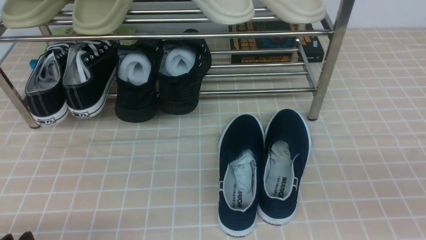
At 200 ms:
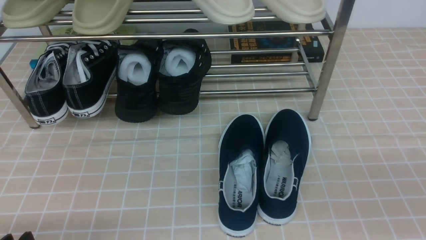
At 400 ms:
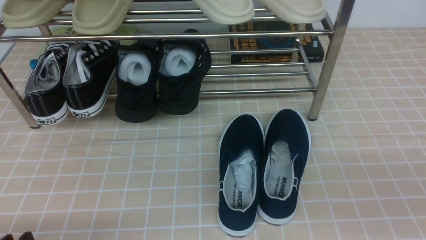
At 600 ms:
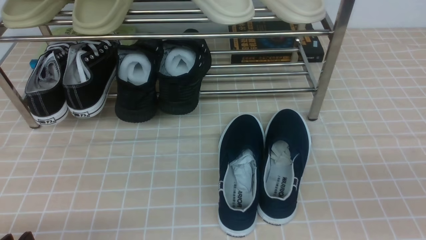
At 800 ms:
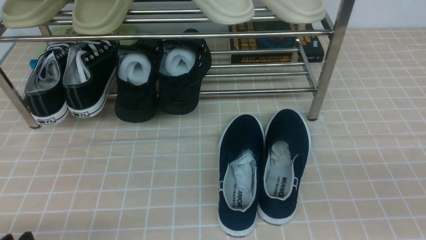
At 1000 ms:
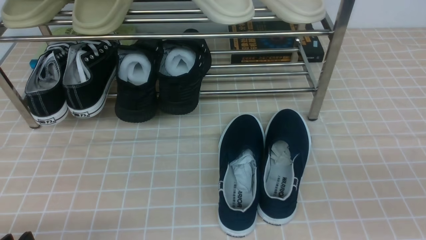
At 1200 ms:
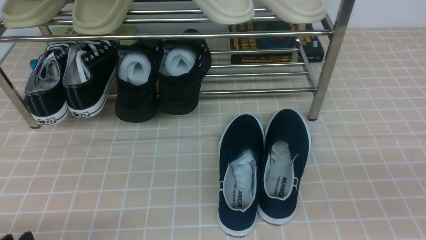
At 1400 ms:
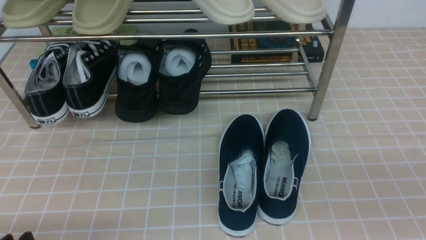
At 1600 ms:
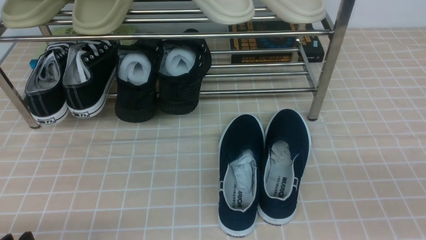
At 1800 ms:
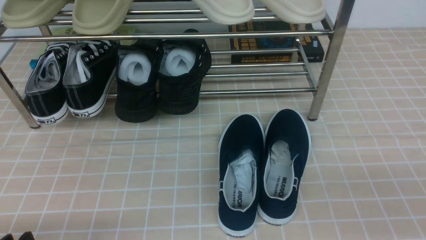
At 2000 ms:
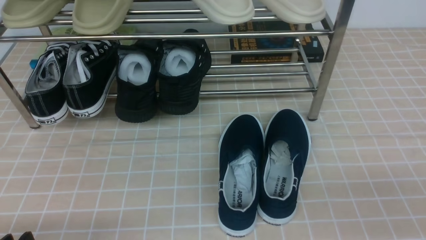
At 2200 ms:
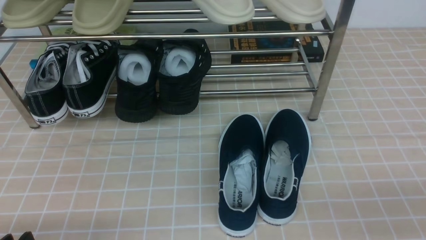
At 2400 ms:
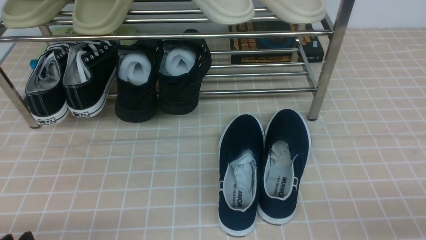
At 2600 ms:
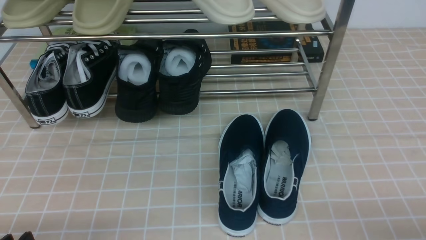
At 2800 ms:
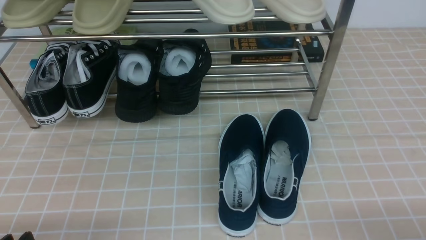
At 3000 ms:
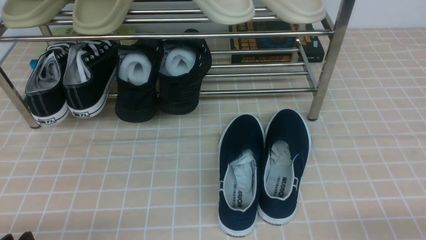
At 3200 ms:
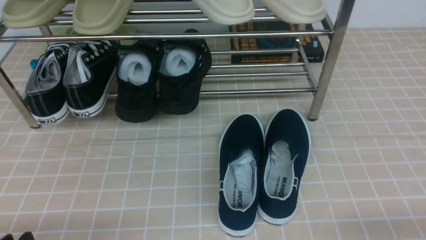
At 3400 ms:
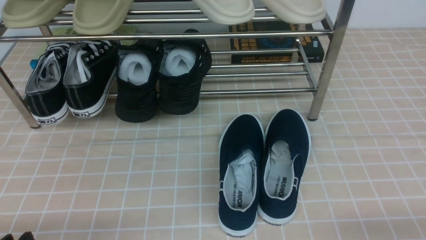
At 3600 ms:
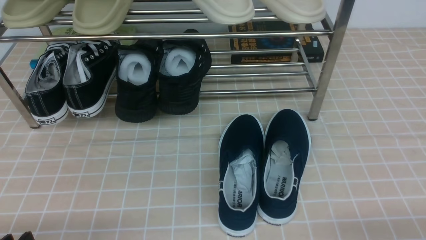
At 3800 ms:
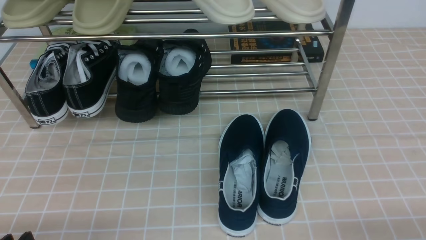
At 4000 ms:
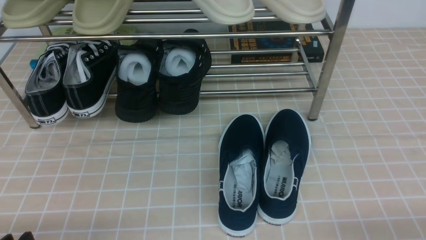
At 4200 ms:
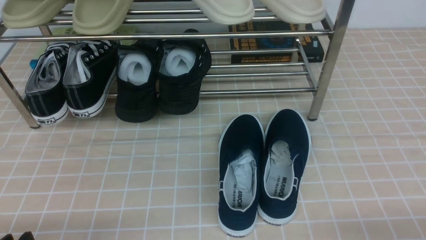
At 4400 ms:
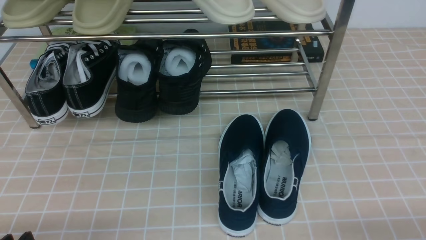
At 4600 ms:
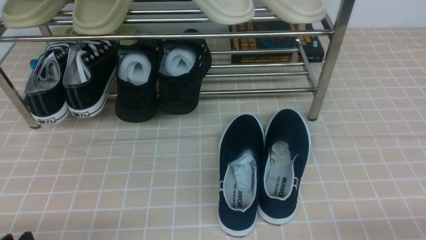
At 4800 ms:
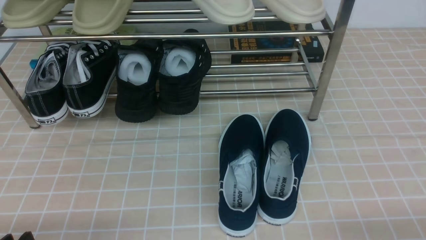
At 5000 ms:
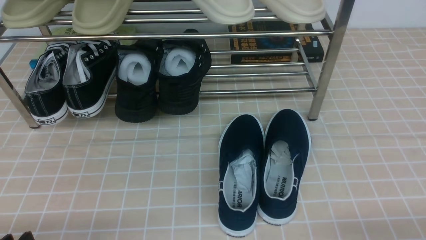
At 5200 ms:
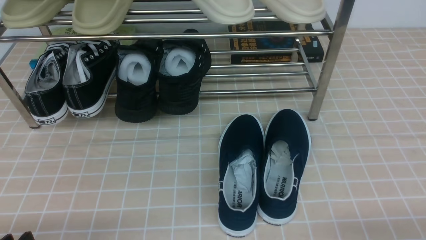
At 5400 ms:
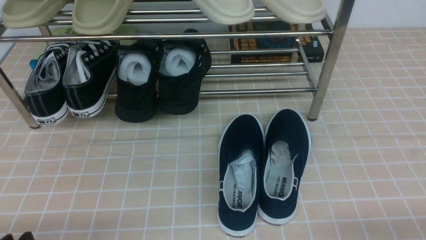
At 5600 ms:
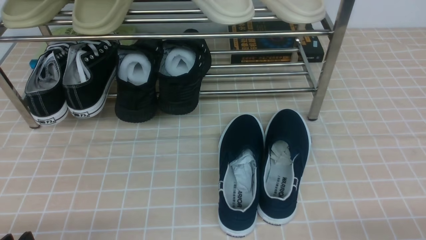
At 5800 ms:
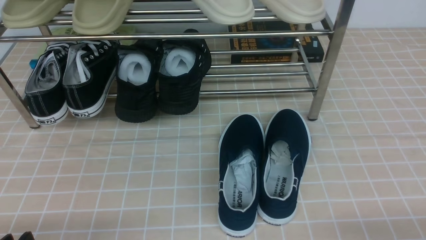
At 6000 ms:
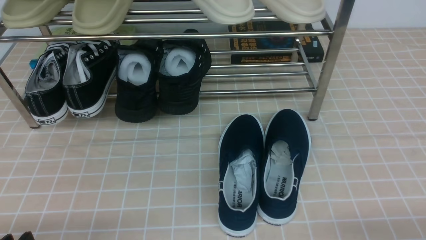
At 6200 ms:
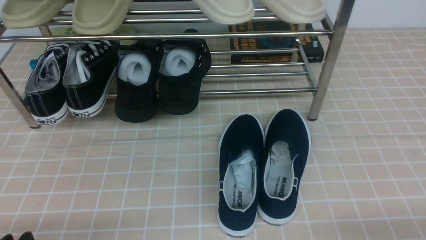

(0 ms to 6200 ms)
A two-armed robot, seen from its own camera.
4600 ms - 6200 ms: Both grippers stay put.
